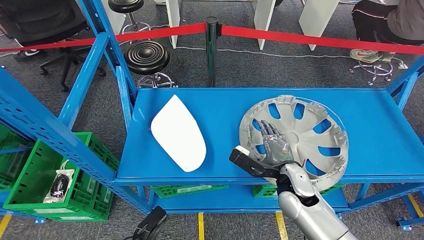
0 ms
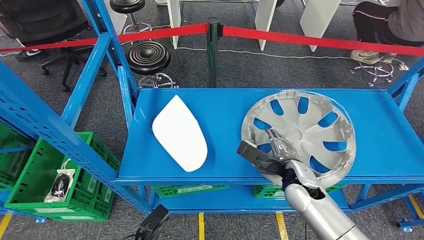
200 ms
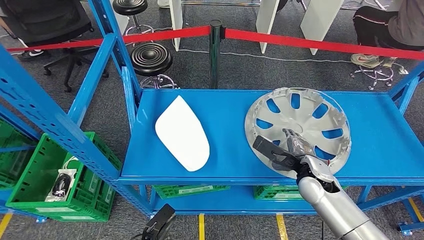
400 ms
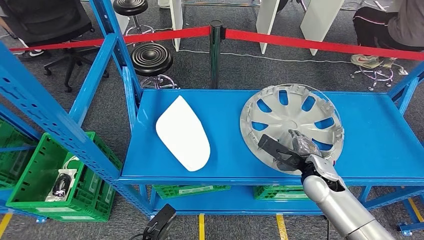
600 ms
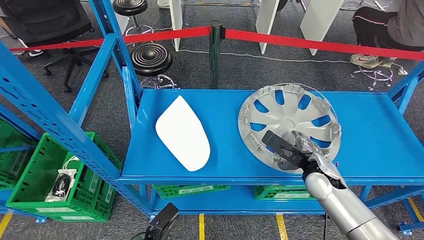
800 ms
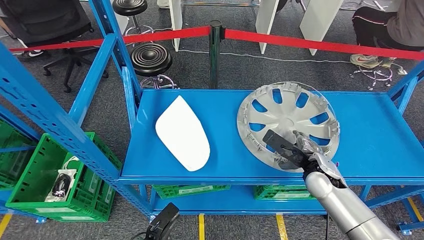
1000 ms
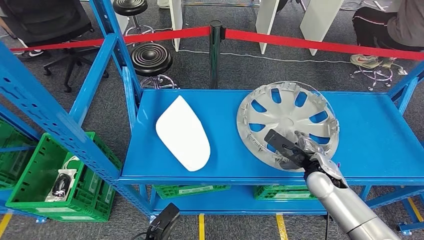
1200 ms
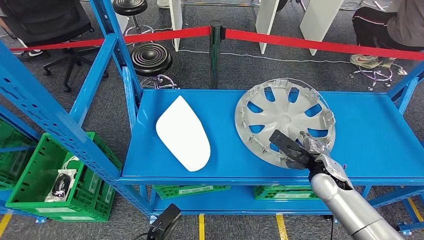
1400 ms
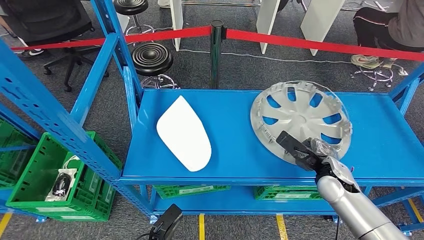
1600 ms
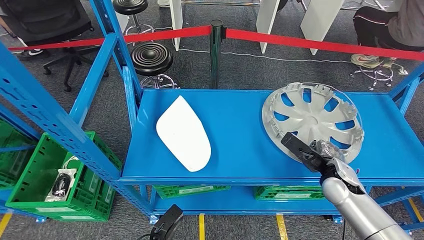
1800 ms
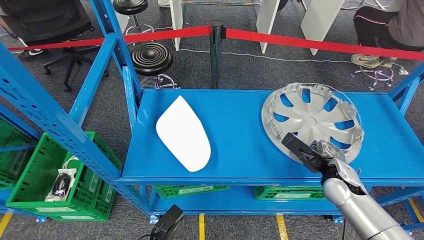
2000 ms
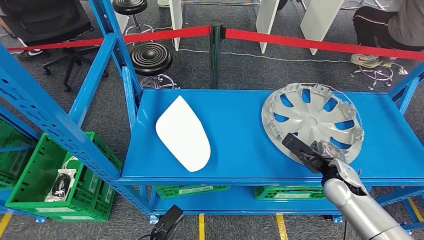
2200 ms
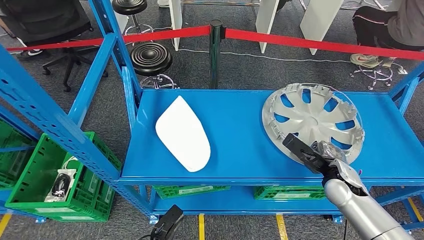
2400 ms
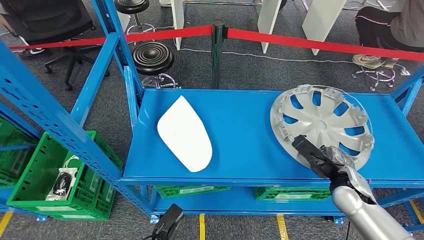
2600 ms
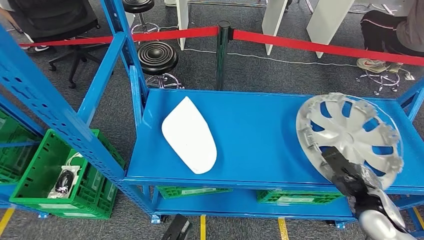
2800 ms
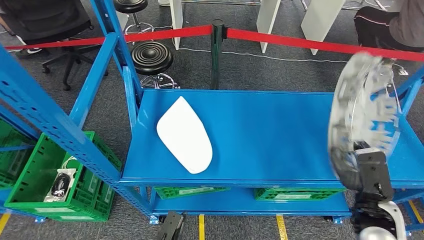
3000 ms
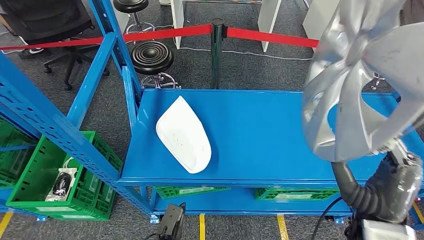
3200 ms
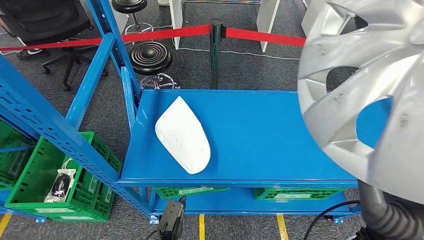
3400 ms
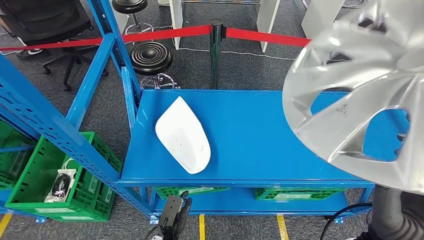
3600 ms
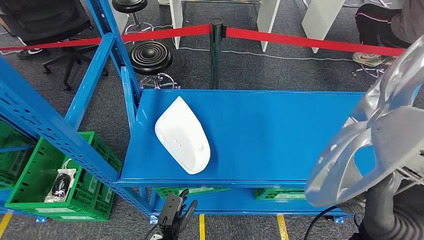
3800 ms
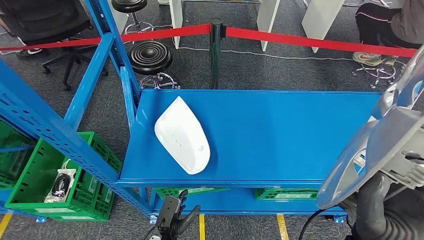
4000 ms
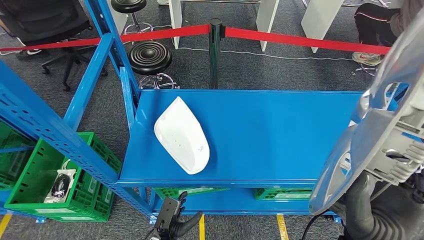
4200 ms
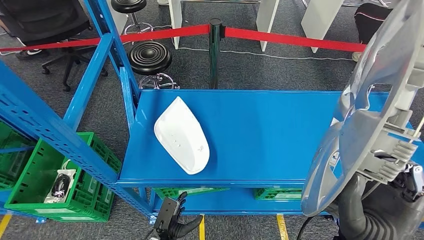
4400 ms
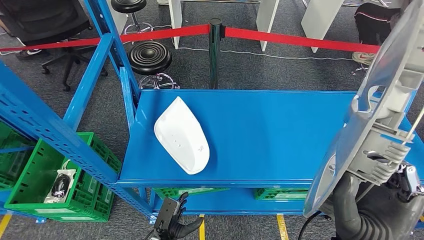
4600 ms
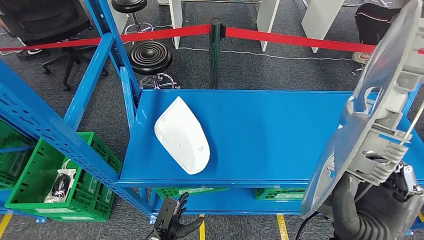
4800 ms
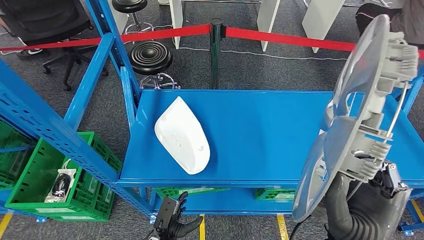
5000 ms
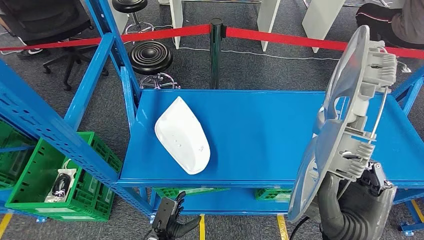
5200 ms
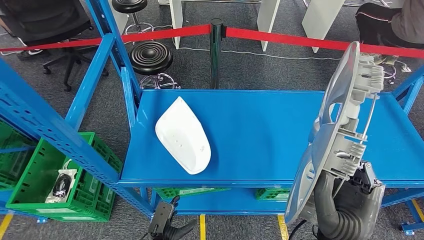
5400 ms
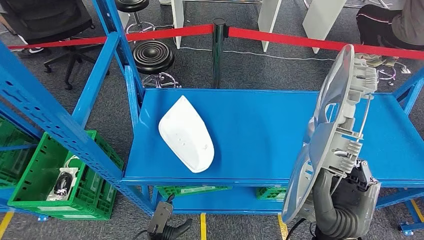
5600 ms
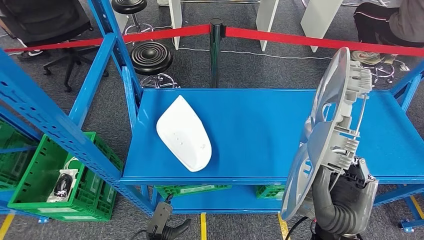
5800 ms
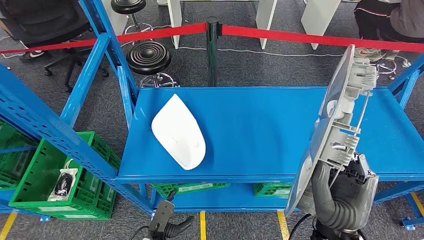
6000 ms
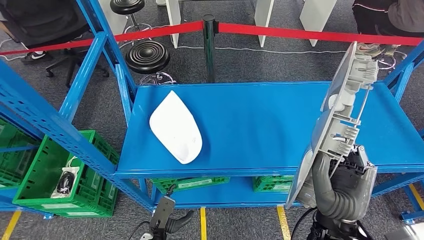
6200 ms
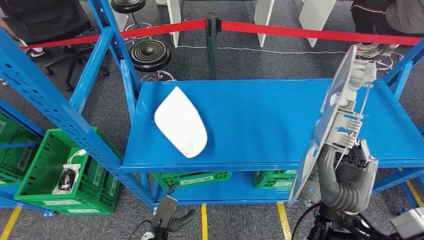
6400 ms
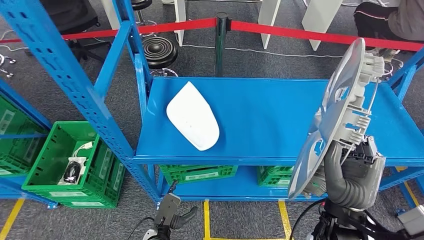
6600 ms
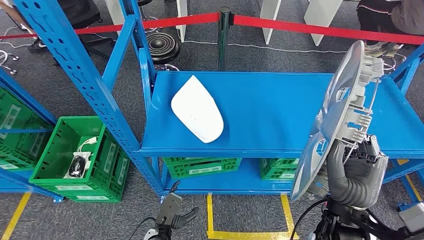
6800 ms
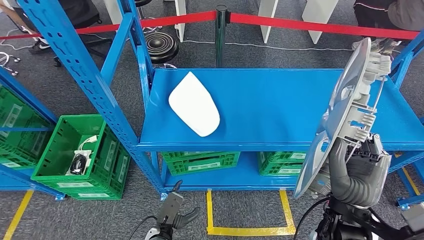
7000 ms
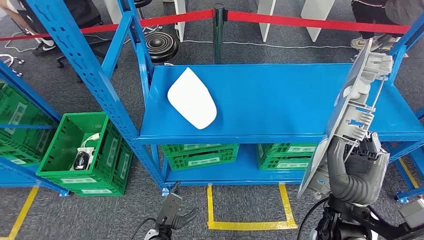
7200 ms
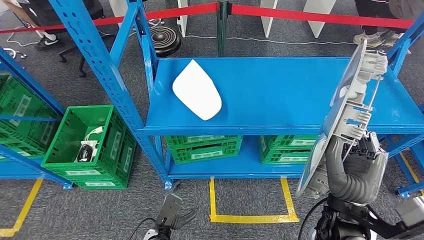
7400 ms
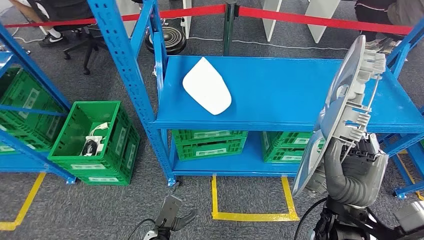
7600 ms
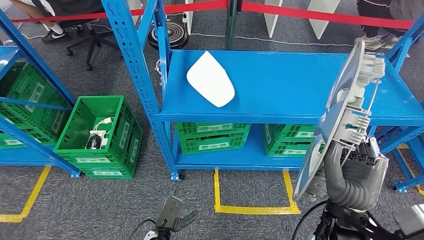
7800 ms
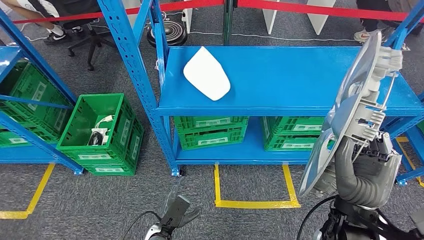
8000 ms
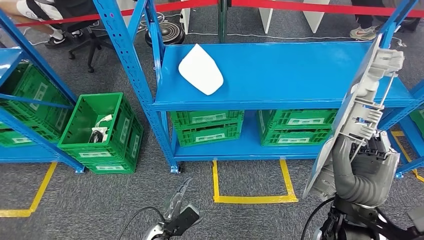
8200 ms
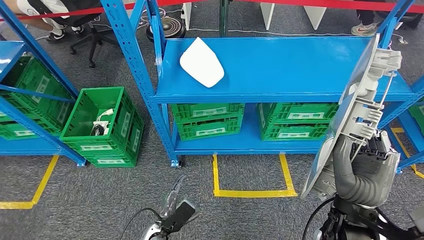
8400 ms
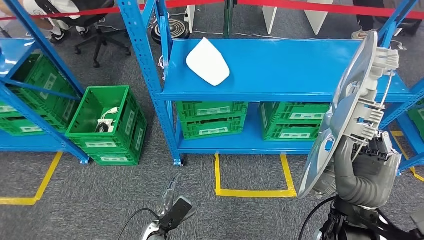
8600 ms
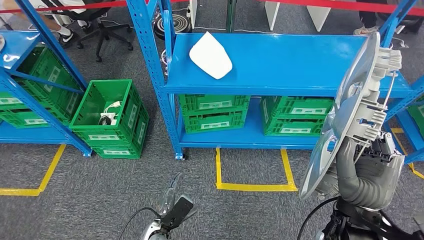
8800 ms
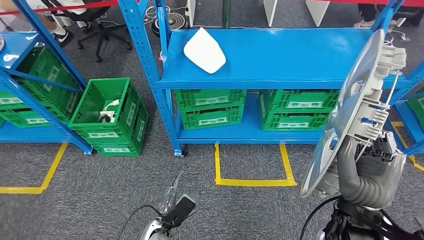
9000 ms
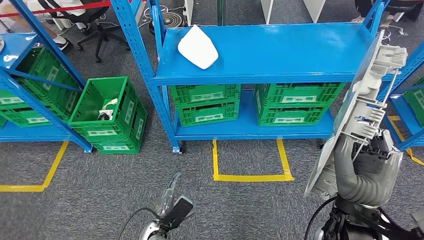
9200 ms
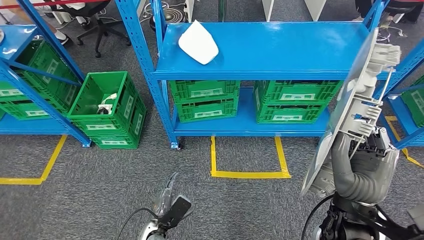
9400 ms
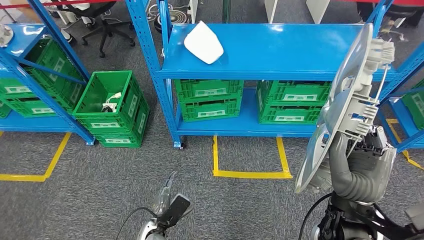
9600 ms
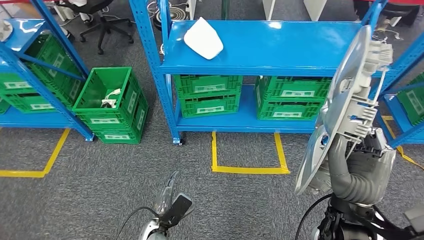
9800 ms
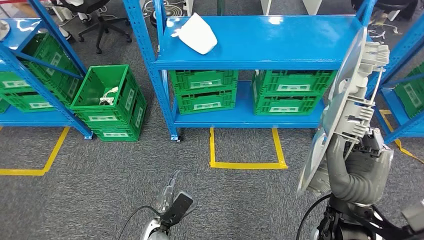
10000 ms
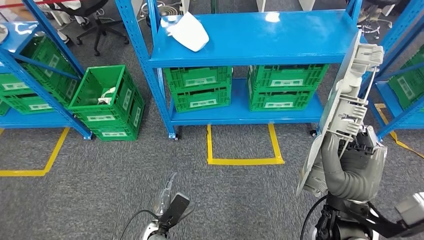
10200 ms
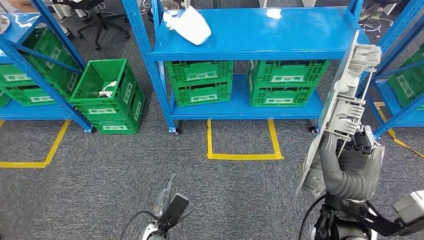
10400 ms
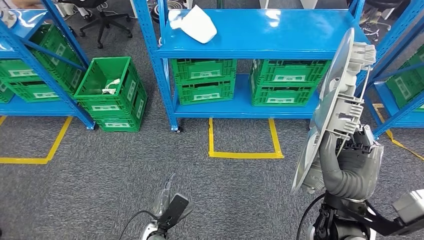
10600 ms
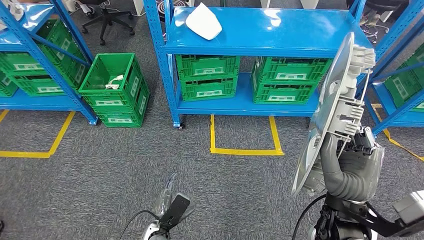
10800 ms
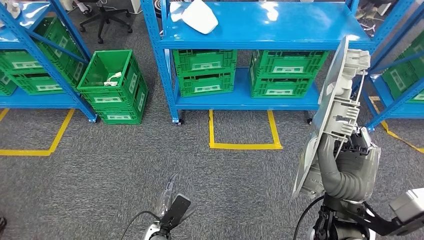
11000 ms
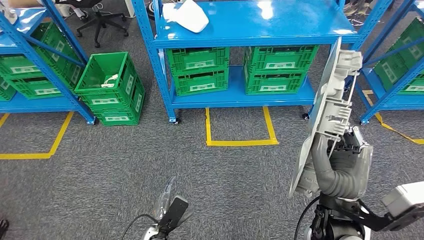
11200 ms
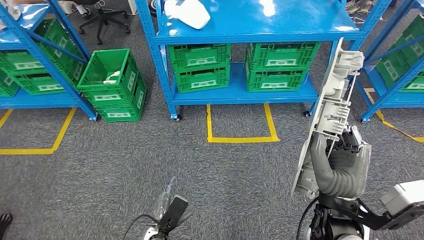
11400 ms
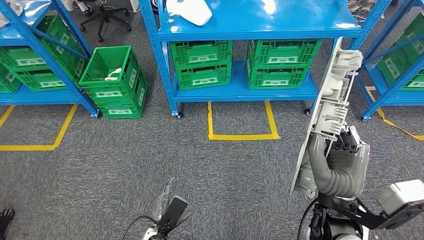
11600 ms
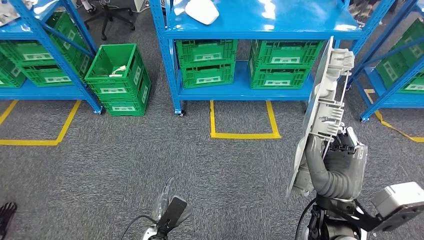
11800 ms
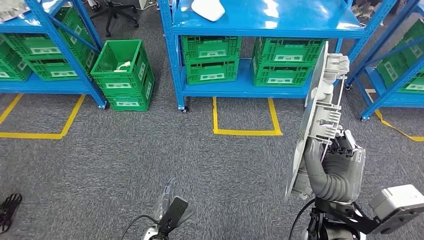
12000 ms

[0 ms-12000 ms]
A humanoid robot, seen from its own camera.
Step, 0 ms to 3800 ms: Pick up the small component from the shelf.
1600 ms to 3000 ms: The left hand shifts some 5 cm to the right. Meanwhile the right hand heads backward, covering about 10 cm.

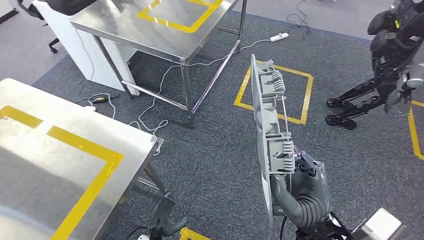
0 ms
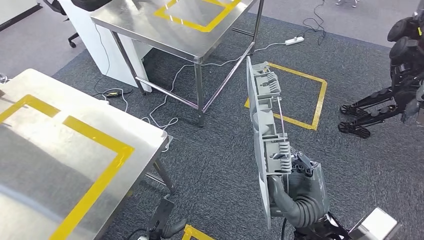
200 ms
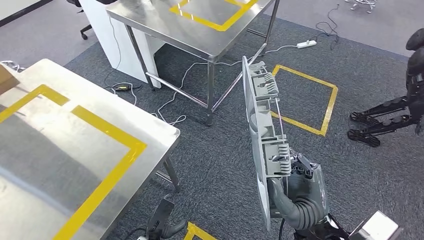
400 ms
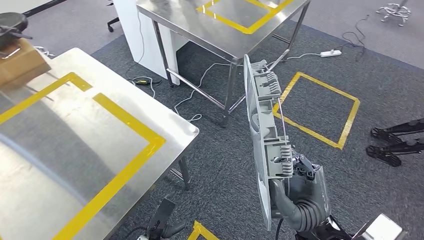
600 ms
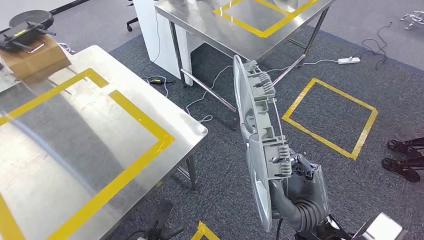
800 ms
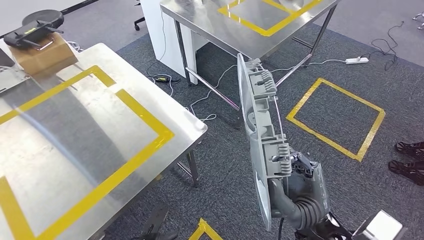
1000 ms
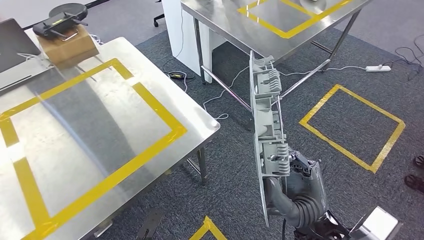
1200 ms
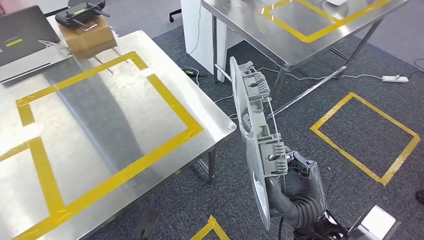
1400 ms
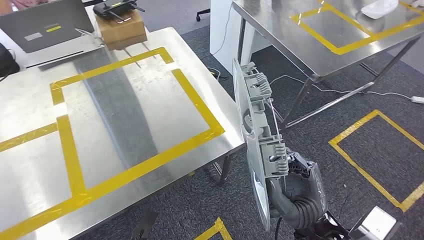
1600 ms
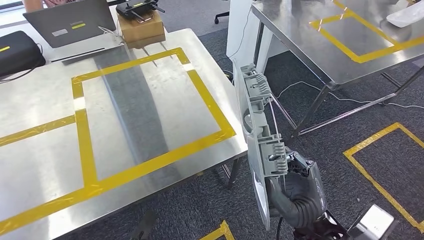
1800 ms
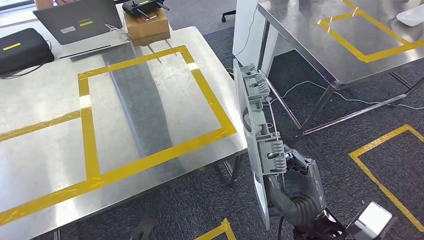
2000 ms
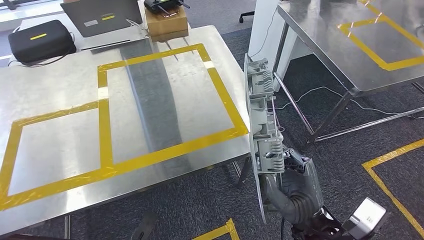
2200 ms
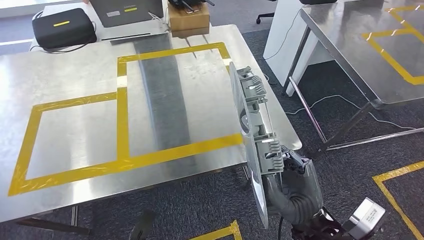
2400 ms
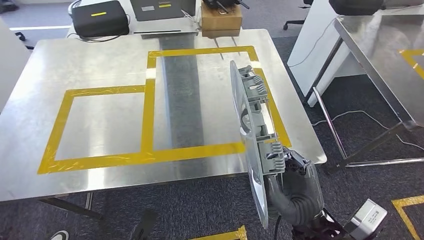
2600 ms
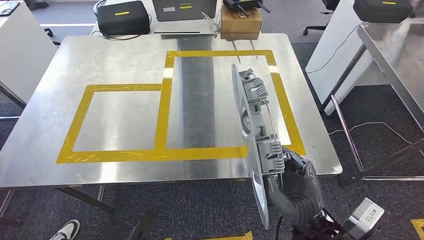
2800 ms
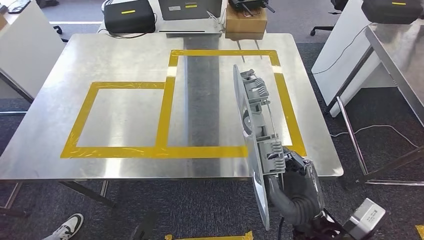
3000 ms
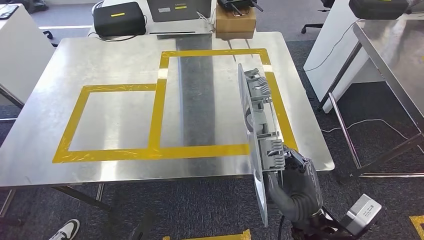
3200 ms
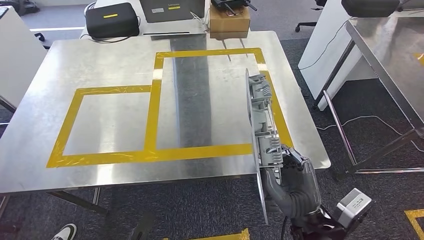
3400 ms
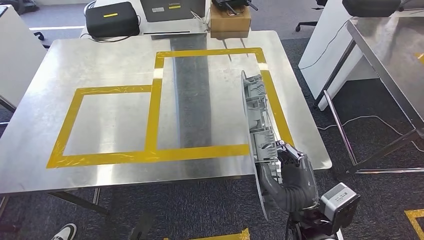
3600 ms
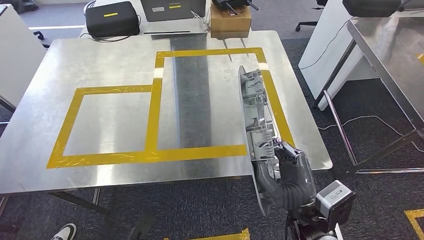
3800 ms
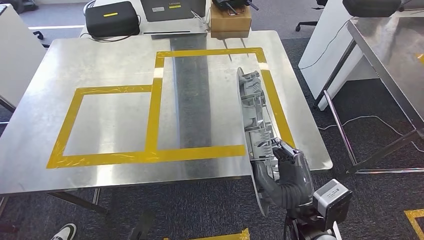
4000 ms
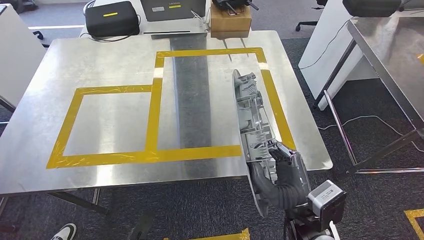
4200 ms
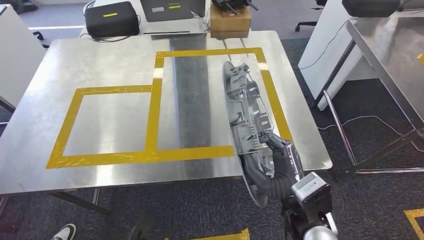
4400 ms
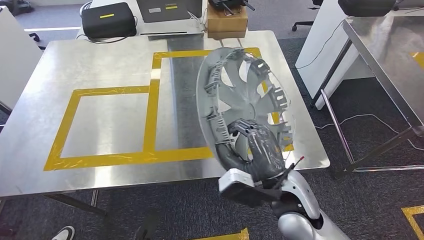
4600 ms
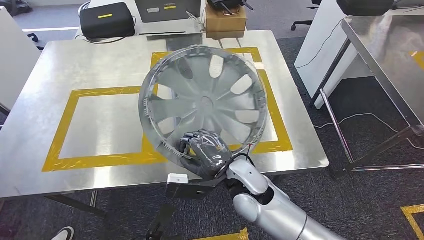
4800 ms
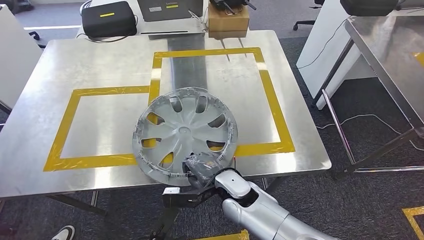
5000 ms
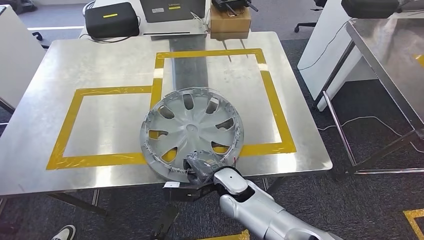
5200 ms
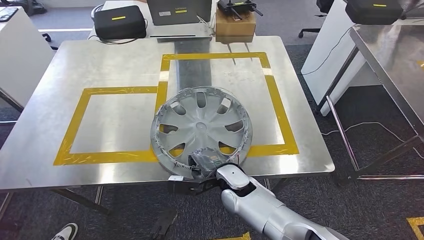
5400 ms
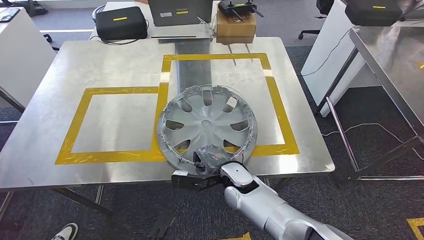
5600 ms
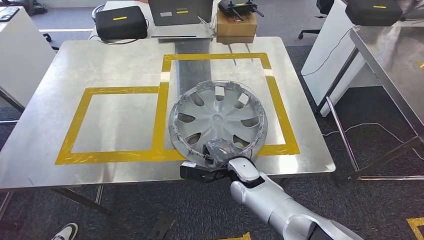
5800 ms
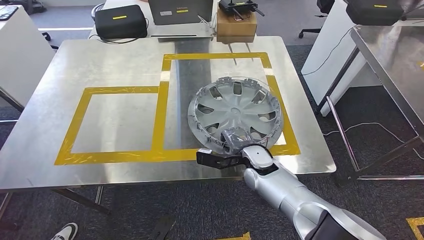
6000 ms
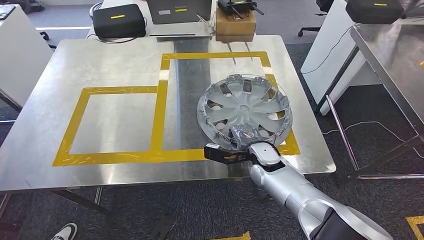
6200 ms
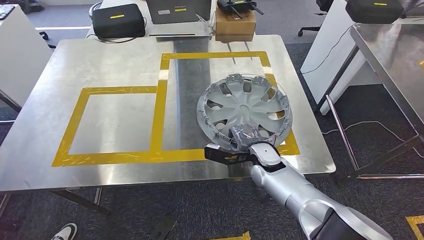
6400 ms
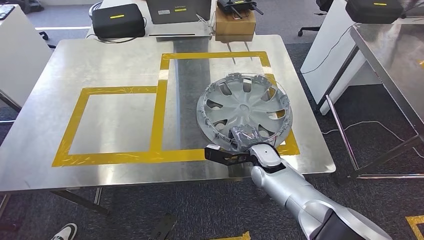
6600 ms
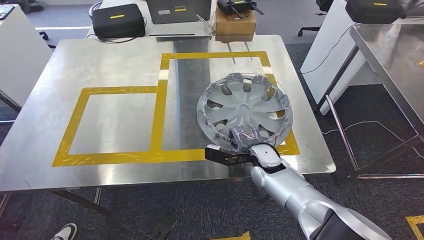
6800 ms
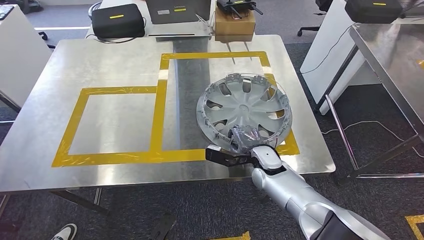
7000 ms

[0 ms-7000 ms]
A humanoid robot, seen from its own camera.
Step, 0 ms to 3400 ms: Move the small component to the workbench.
